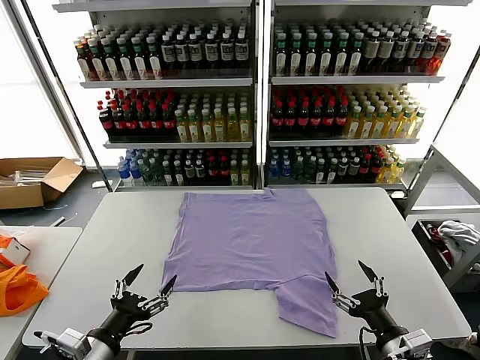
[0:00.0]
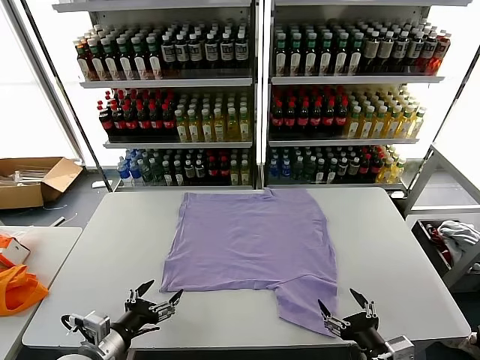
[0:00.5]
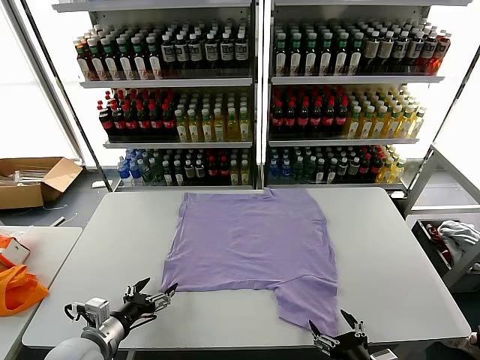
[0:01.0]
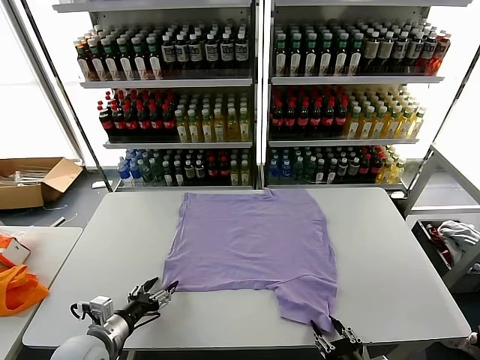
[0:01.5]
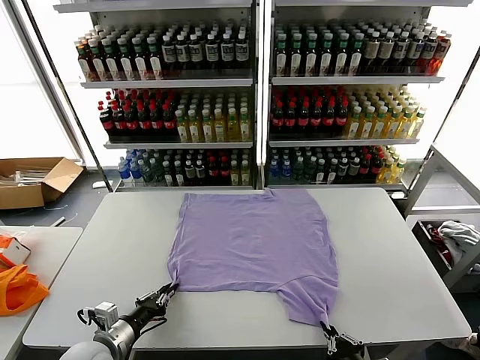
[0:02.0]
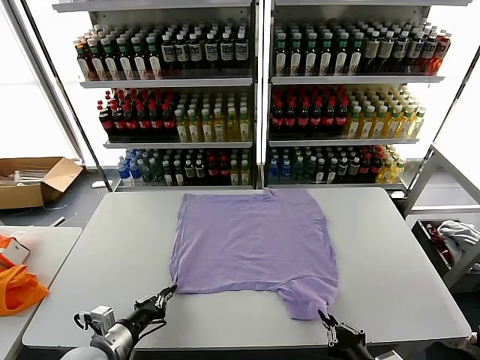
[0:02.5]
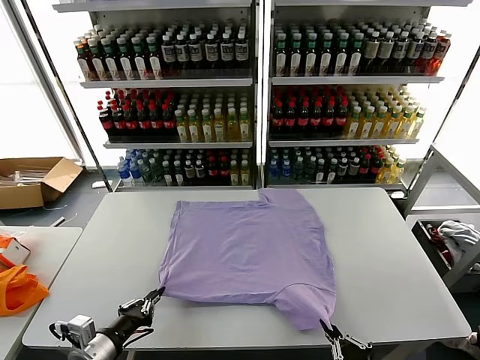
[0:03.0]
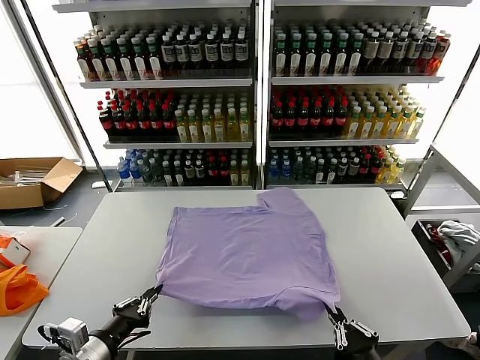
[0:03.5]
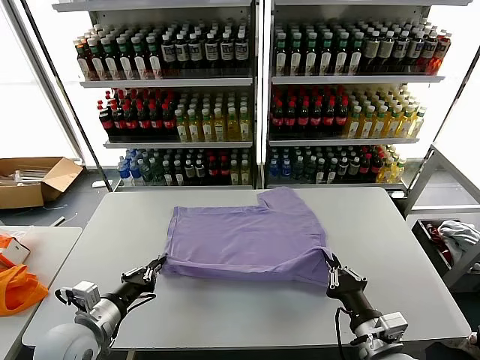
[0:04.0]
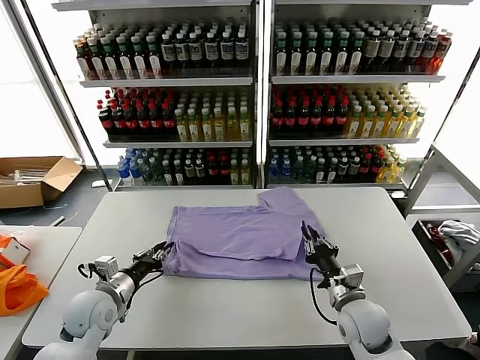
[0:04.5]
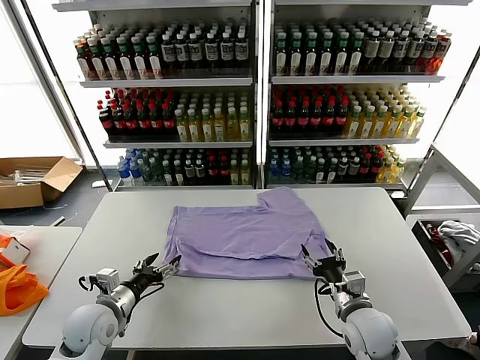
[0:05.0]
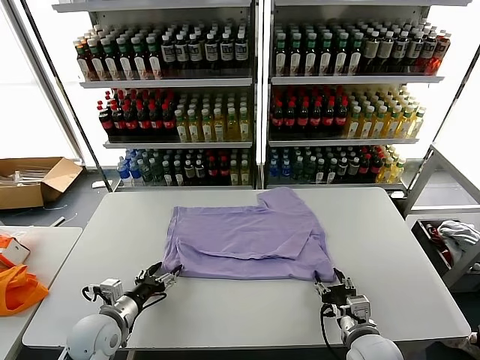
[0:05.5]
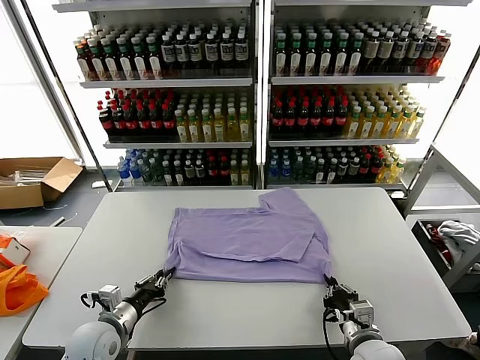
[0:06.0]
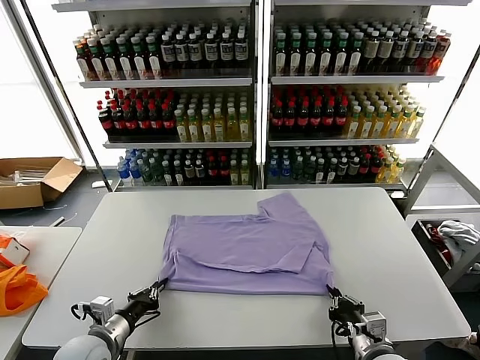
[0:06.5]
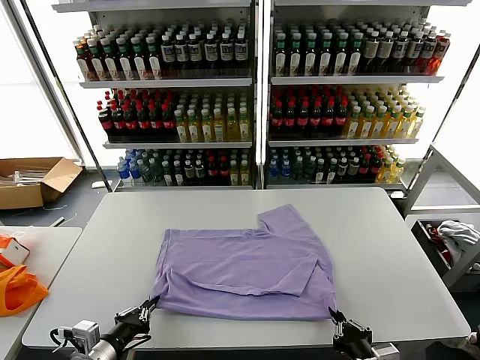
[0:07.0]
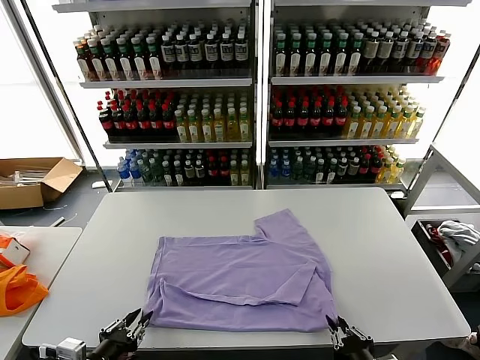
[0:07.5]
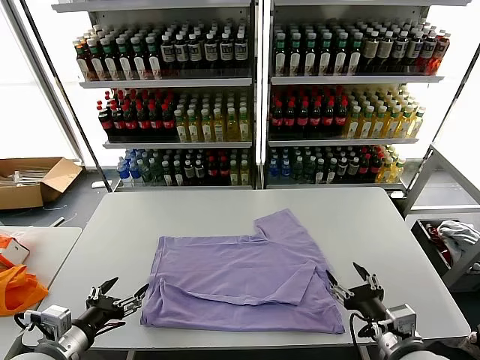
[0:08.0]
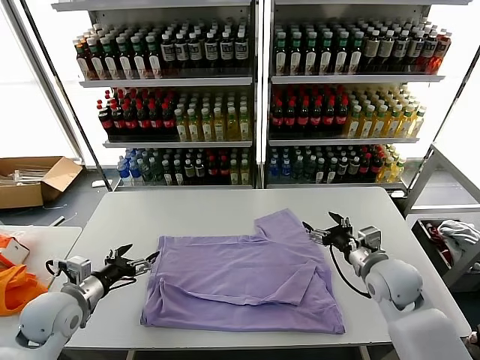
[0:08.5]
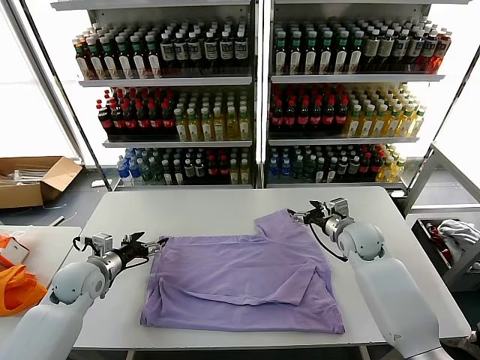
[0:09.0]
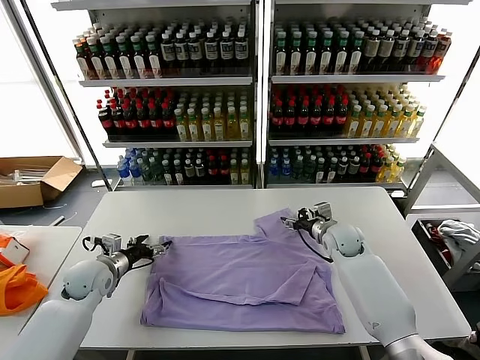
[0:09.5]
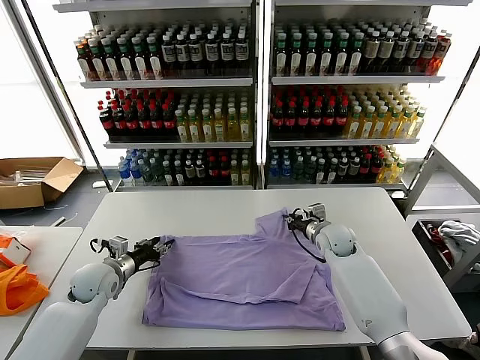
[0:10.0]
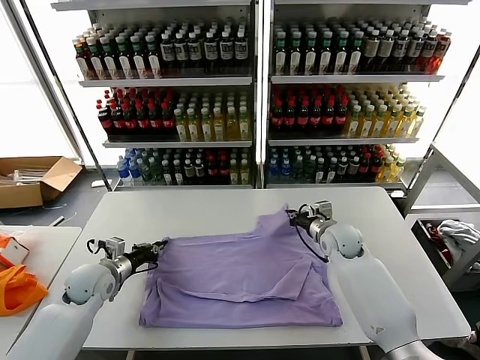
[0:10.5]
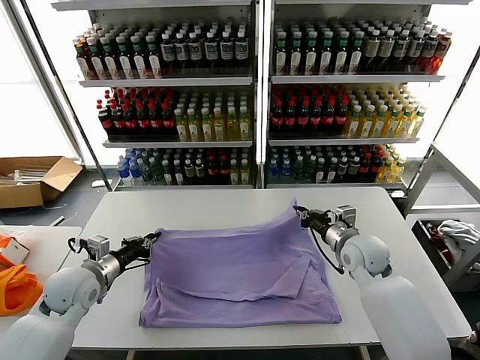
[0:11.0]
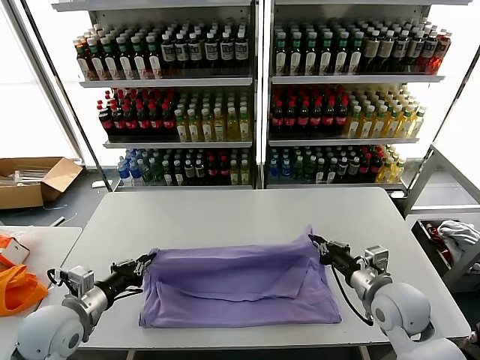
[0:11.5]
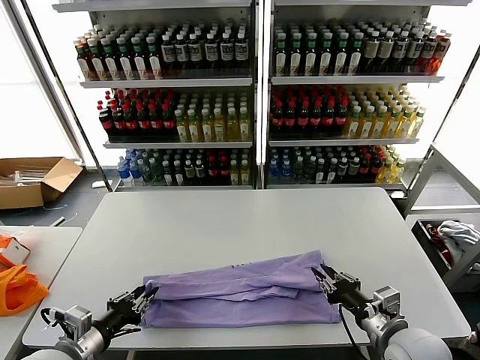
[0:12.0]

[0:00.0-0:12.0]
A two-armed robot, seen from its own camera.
Task of the whole recording: fold and organize the clothes.
Step, 0:00.0 to 0:02.0: use both grippers simultaneously to clamp the lower edge of the clothing fabric.
Step, 0:02.5 to 0:04.5: use both grippers to drag the lower edge of the fabric forward and fold it over the upper edge.
Step, 0:05.0 to 0:07.5: Drag the clothes downward with both gripper.
Step, 0:08.0 to 0:10.0: use both grippers simultaneously to clamp the upper edge of the clothing fabric.
0:02.0 to 0:04.0: The left gripper goes approximately 5 cm upward, while the right gripper shifts some 5 cm forward.
0:04.0 to 0:06.0: Both grippers travel together downward, approximately 5 cm. The left gripper opens, then closes once more. Meanwhile the right gripper opens, then closes once more.
0:06.0 to 0:08.0: Both grippers travel together upward and backward, some 10 cm. The left gripper opens up. The right gripper opens.
0:08.0 to 0:10.0: The left gripper heads forward, covering some 20 cm, and closes, while the right gripper goes roughly 35 cm forward, and closes up.
0:10.0 to 0:12.0: Both grippers move backward, some 25 cm.

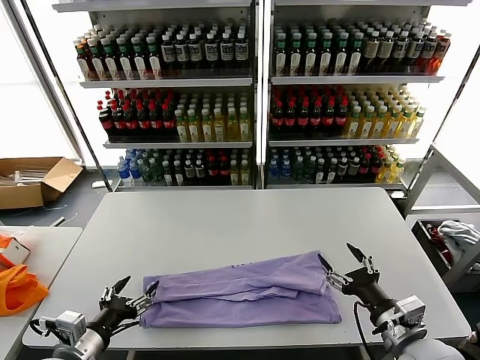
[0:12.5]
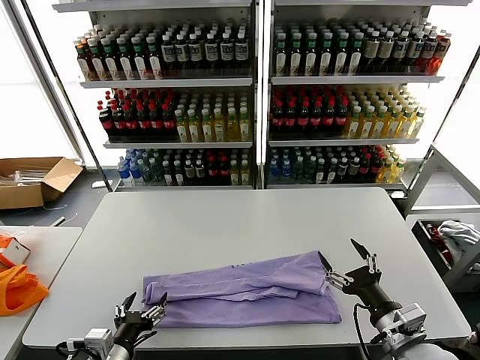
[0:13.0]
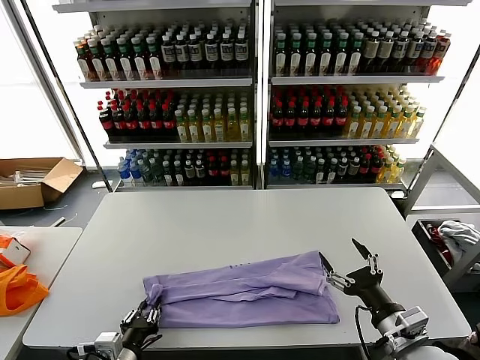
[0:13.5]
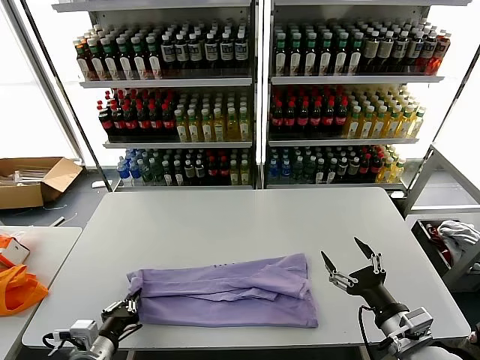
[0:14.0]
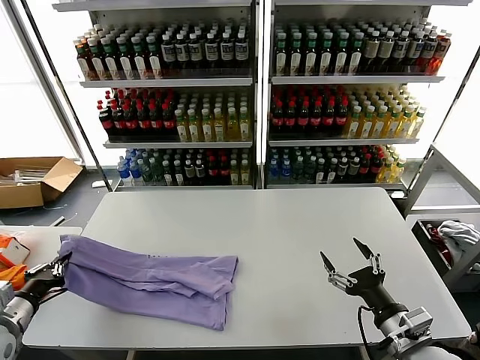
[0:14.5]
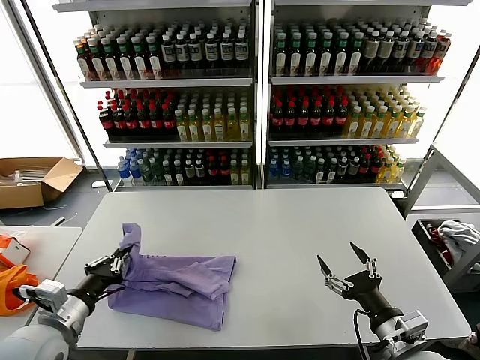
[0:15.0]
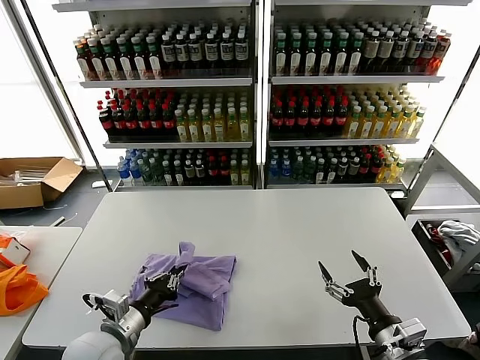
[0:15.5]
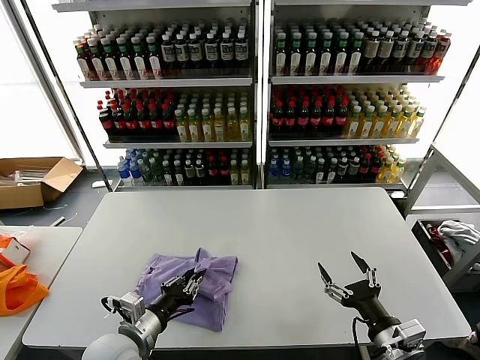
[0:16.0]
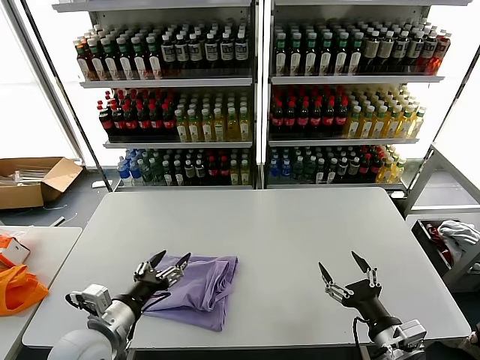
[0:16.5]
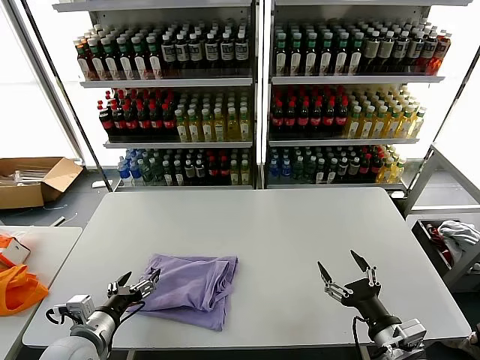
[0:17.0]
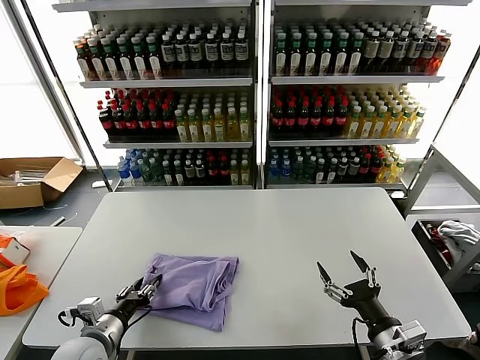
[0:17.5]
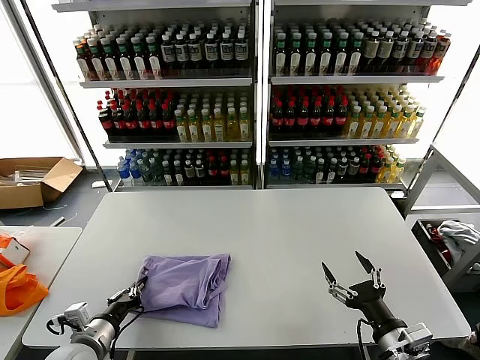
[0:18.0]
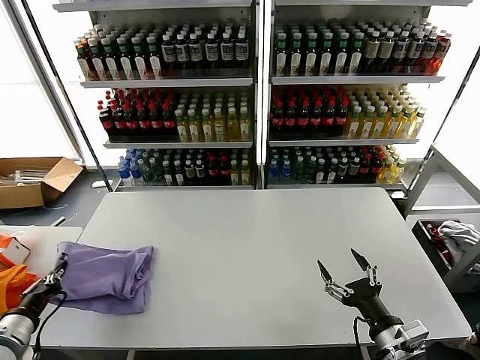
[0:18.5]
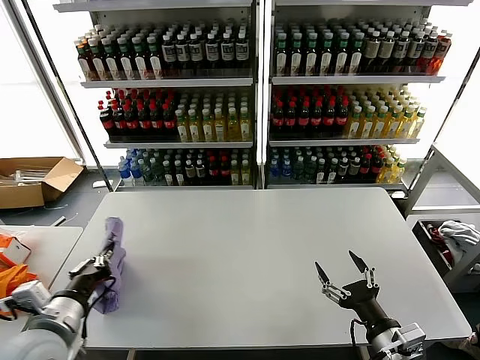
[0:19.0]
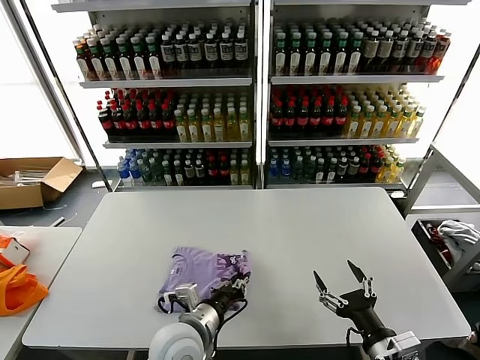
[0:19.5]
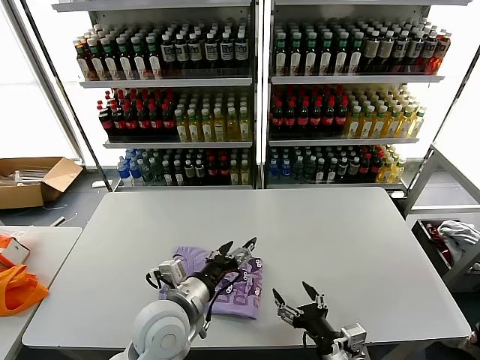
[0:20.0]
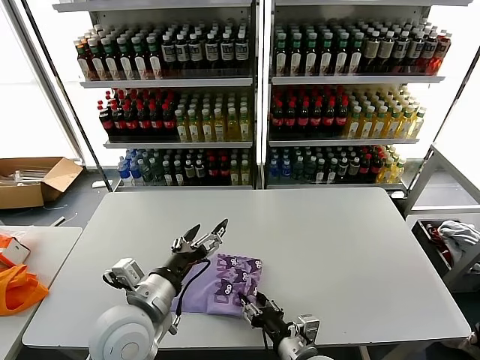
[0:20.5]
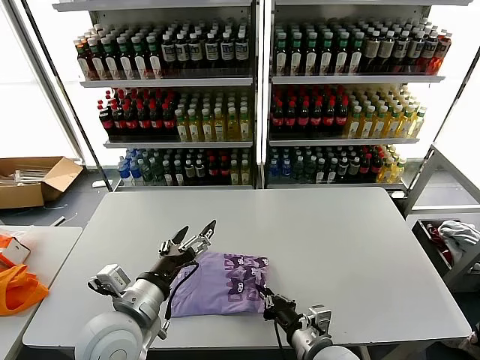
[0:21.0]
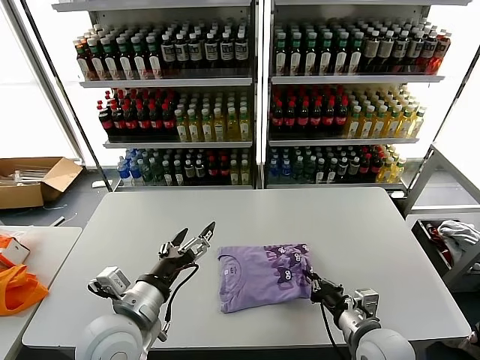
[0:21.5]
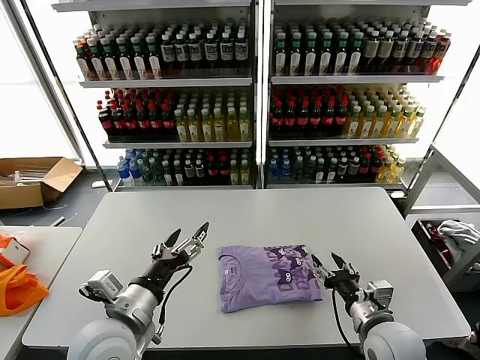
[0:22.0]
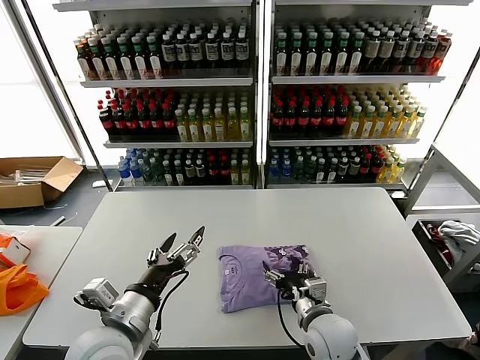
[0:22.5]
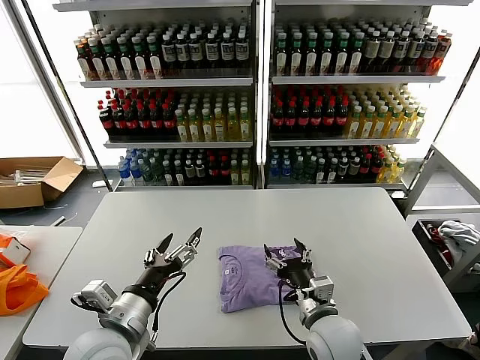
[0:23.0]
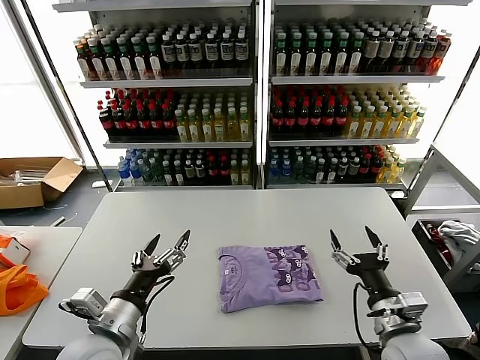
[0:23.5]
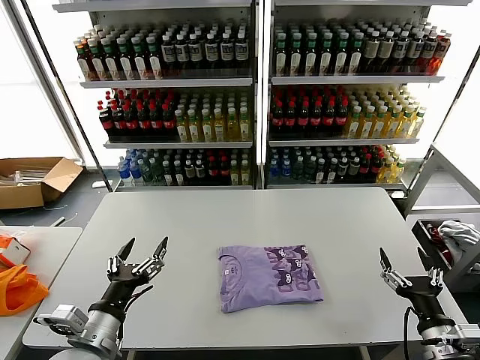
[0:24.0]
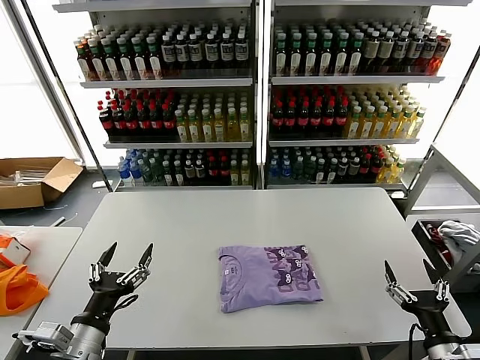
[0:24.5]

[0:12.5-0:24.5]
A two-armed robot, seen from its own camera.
Task of the whole recording: fold and organize the clothes.
Step, 0:12.5 to 0:13.5: use the left gripper to clamp the left edge of the fabric.
Step, 0:14.0 to 0:16.0: use the left gripper to drag the left edge of the fabric to the left and folds it over the right edge.
Step, 0:16.5 to 0:19.5: Flip the folded clothes over with left gripper.
Step, 0:20.0 to 0:22.5: Drag the clothes to the center of the table.
0:12.5 to 0:14.5: The left gripper is displaced to the left by some 15 cm, and closes its fingers.
0:14.5 to 0:16.5: The left gripper is displaced to the right by approximately 20 cm, and opens up.
0:16.5 to 0:18.5: The left gripper moves to the left, approximately 15 cm, and closes up.
0:18.5 to 0:20.5: The left gripper is displaced to the right by about 25 cm, and opens its fingers. The right gripper goes some 15 cm to the left and downward.
0:20.5 to 0:22.5: The right gripper goes some 5 cm forward, goes to the right and returns, roughly 15 cm each way, and closes, then reopens.
0:22.5 to 0:24.5: The right gripper moves to the right and backward, about 25 cm. The left gripper goes approximately 10 cm to the left and downward.
